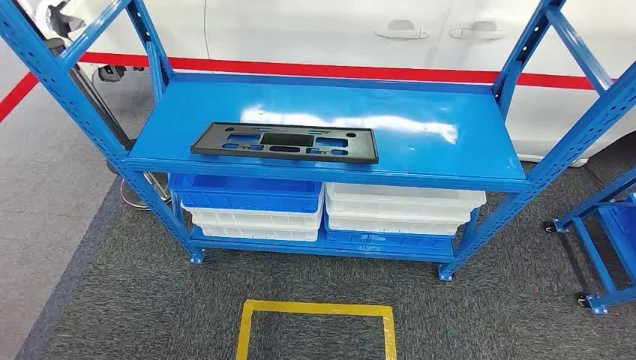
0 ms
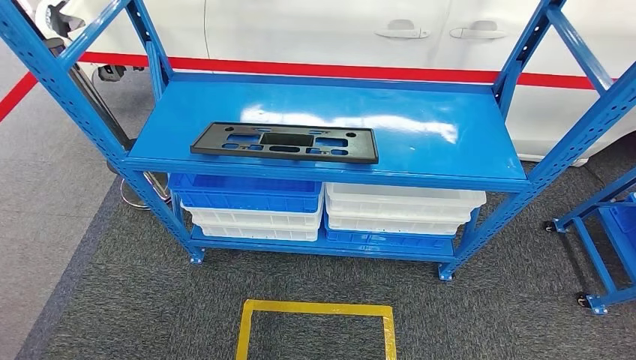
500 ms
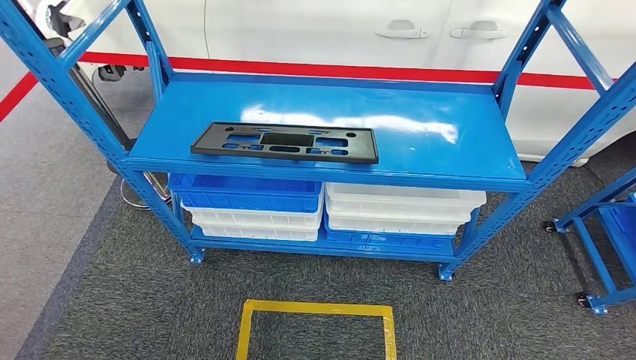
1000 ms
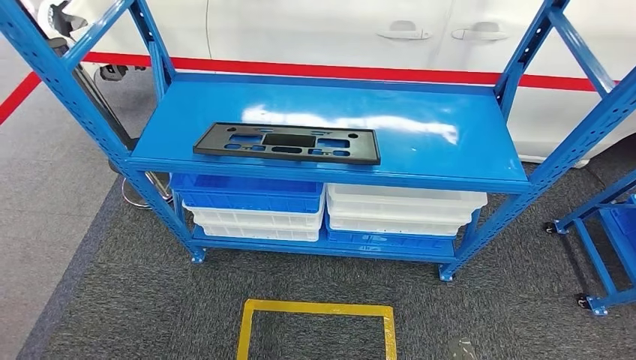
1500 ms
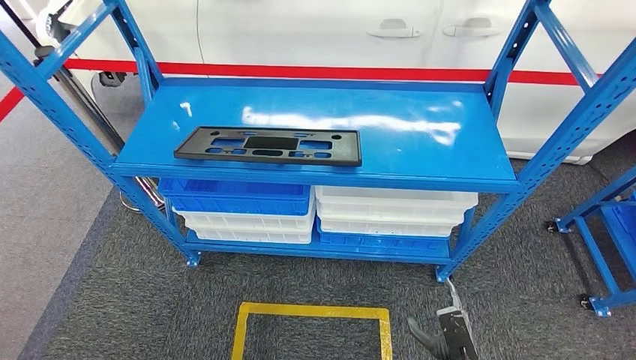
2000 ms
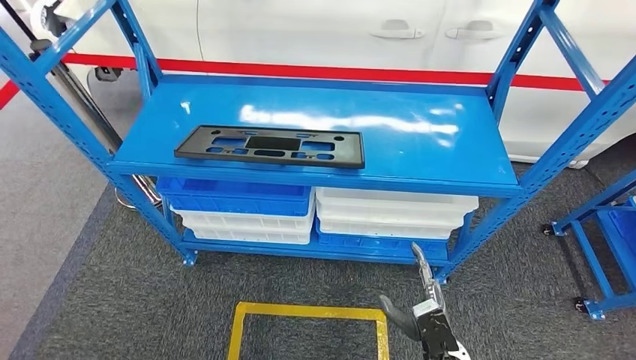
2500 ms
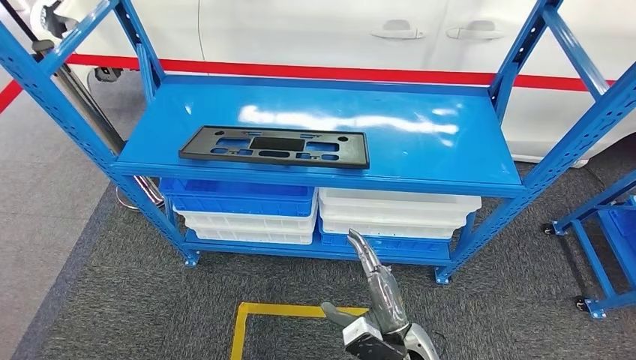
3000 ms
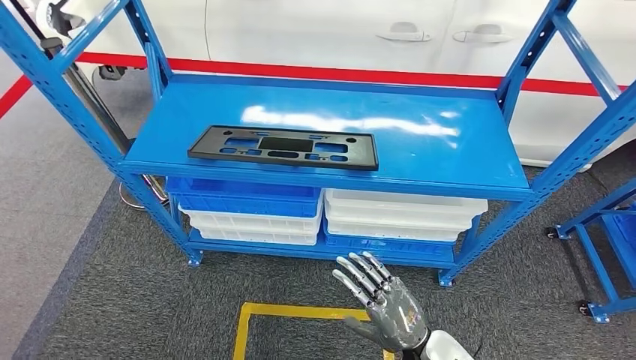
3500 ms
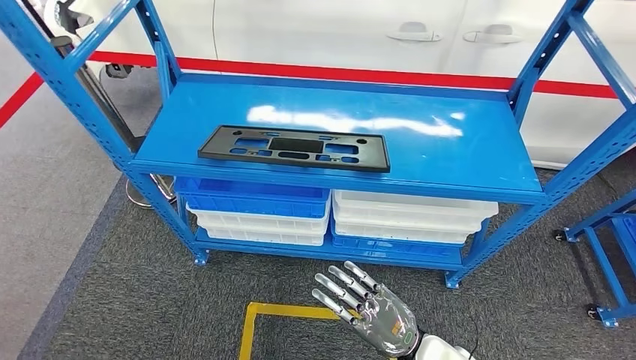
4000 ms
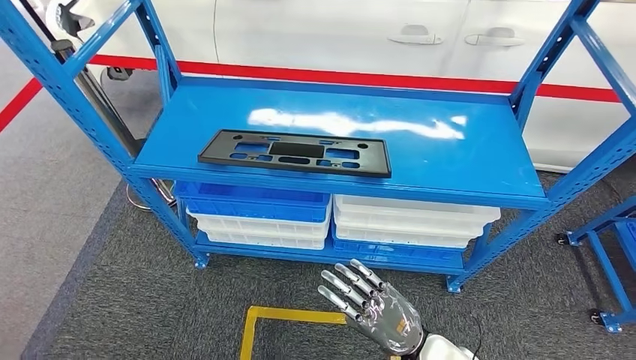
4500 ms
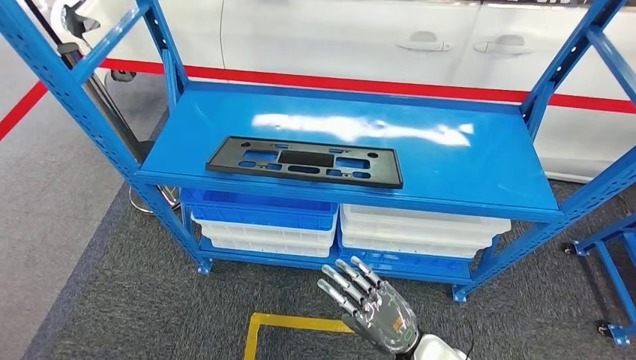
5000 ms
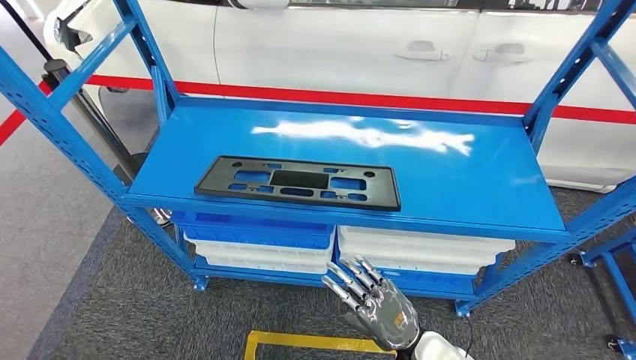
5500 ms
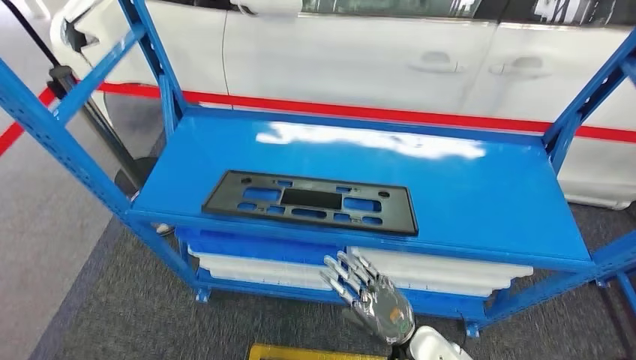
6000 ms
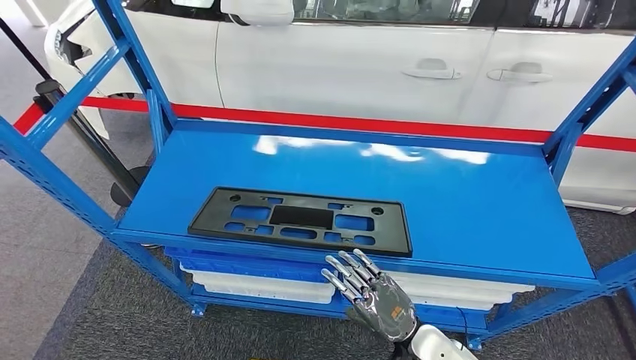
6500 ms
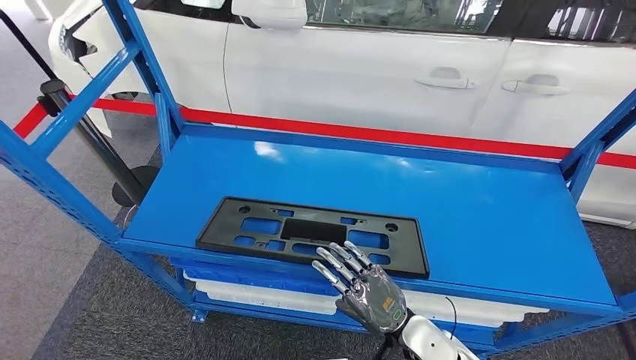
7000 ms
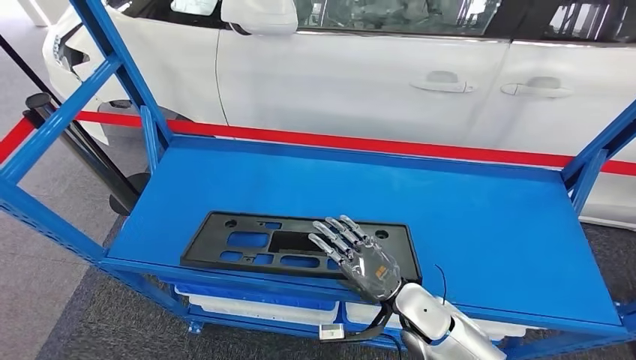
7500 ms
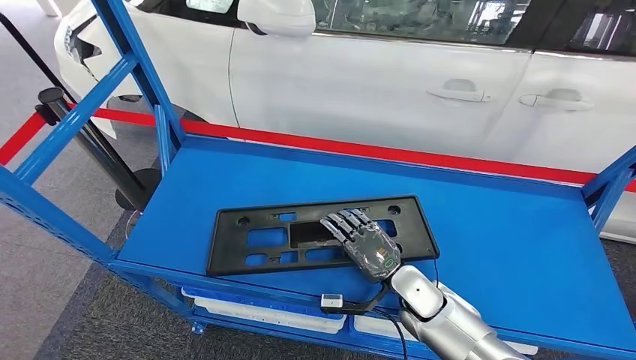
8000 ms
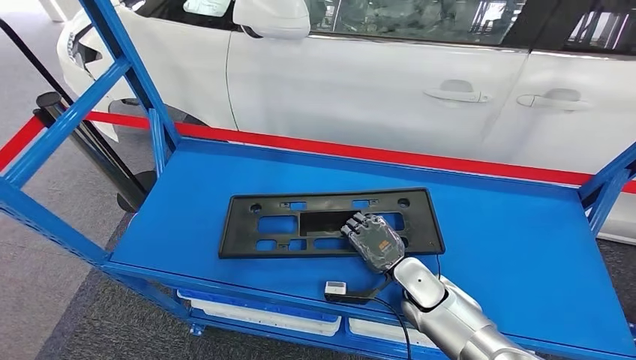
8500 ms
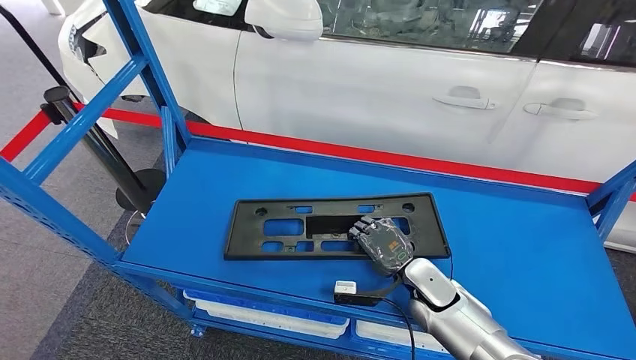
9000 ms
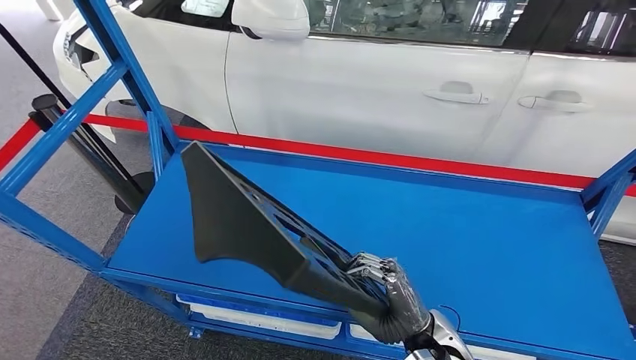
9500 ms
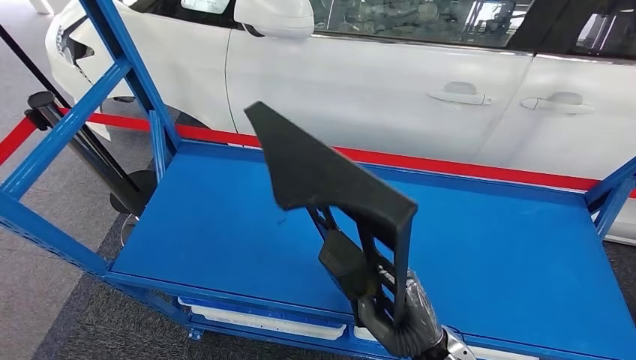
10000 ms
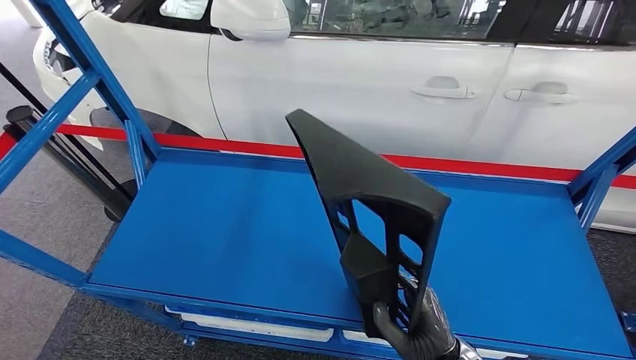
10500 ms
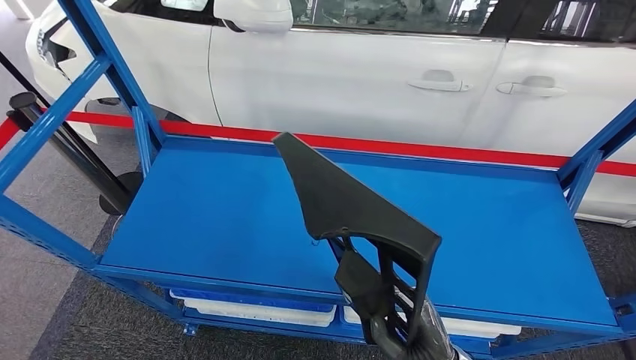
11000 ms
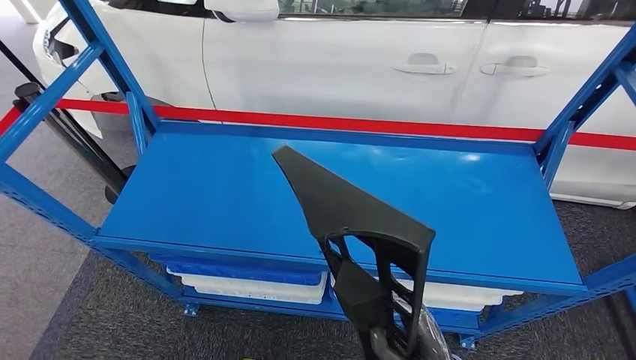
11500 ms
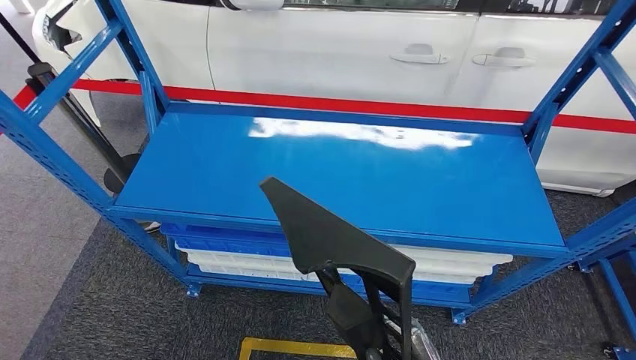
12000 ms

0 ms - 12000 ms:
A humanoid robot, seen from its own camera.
Step, 0 ms - 11500 ms: Pick up the large material from the shelf.

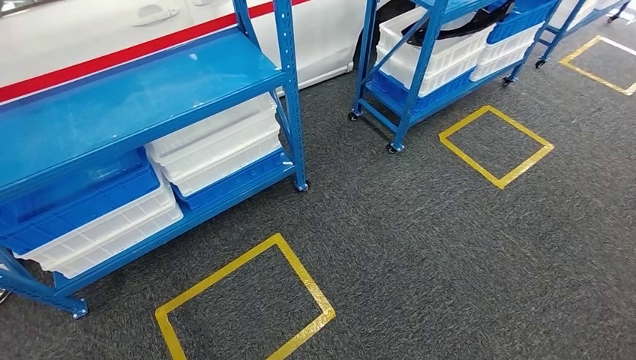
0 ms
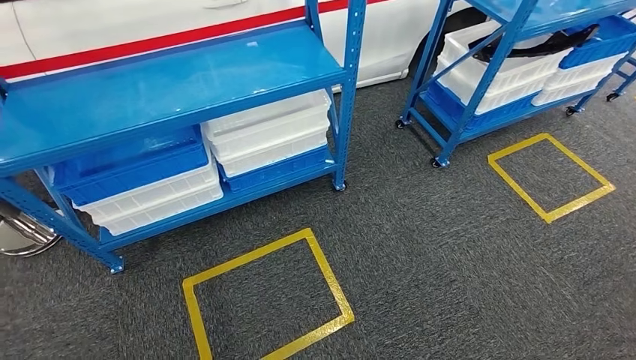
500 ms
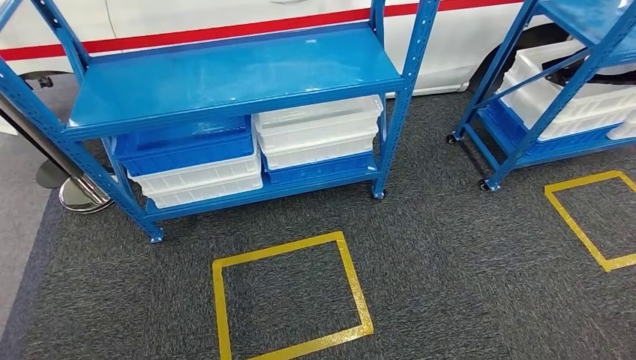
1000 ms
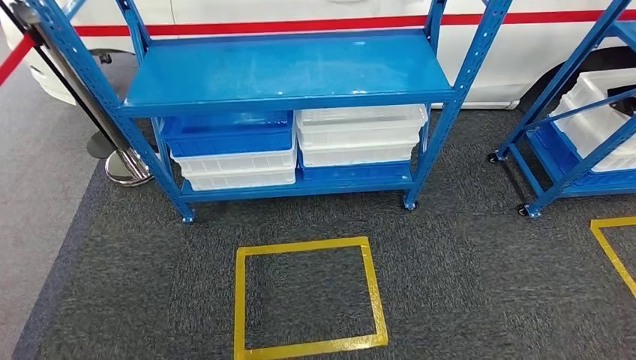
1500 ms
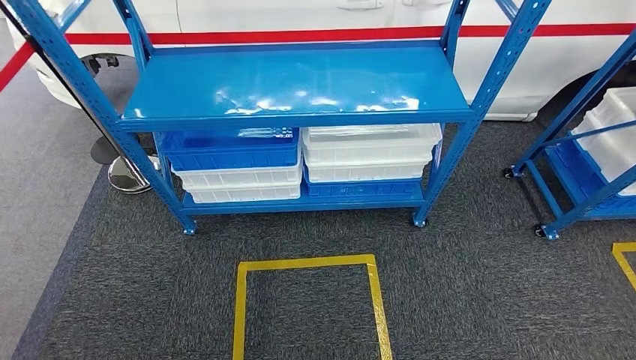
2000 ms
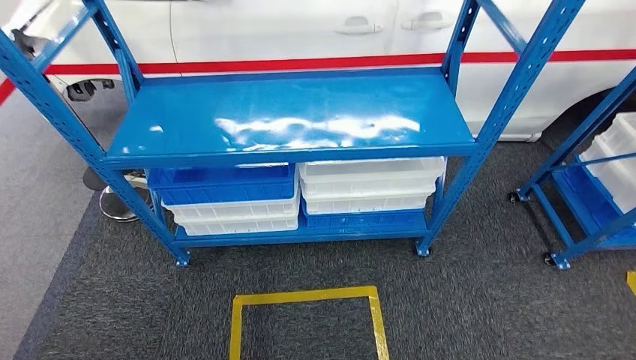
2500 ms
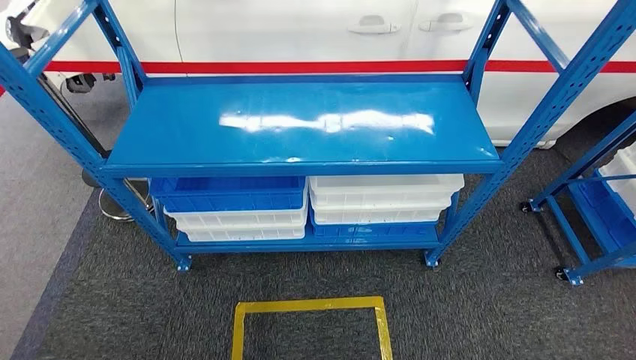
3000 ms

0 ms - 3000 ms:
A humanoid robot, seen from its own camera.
Step, 0 ms - 3000 ms: Move to the initial position of the shelf.
